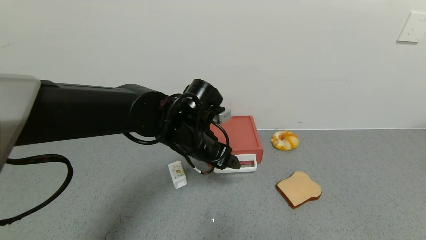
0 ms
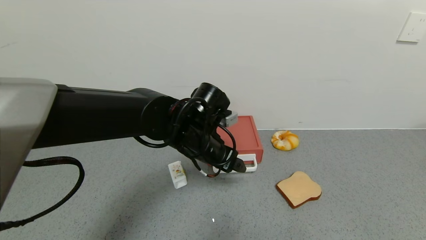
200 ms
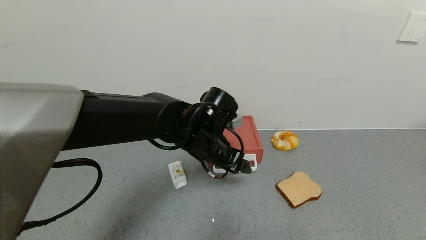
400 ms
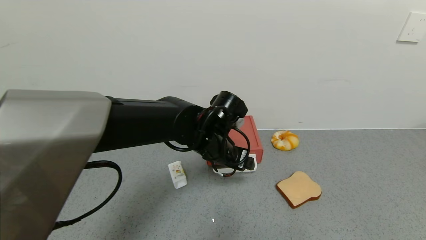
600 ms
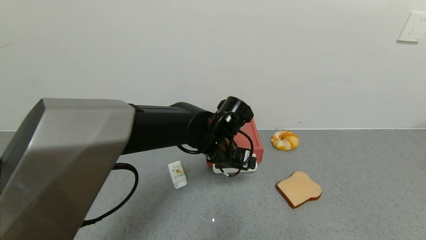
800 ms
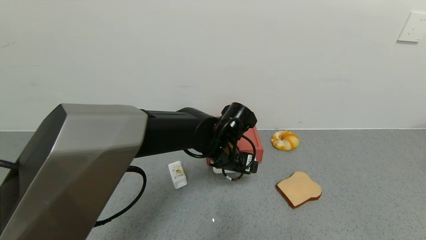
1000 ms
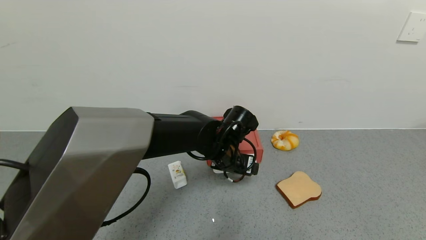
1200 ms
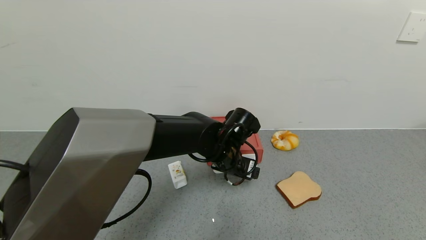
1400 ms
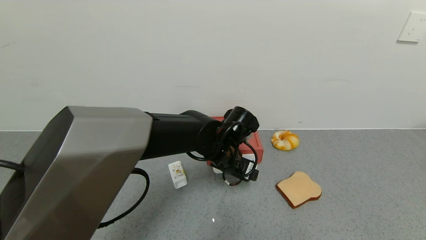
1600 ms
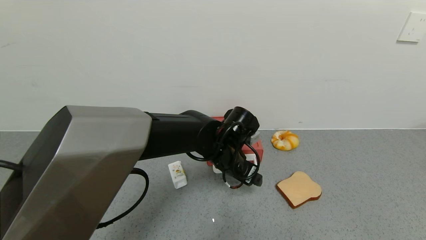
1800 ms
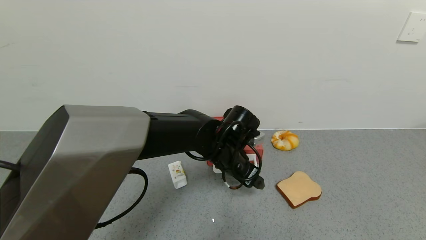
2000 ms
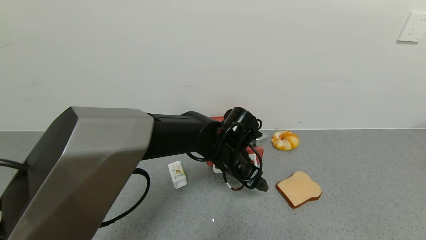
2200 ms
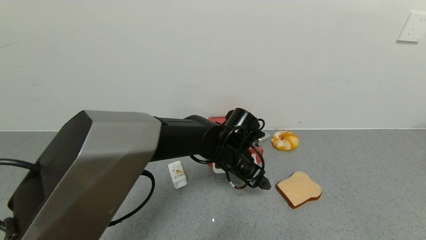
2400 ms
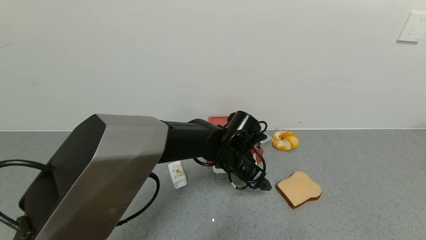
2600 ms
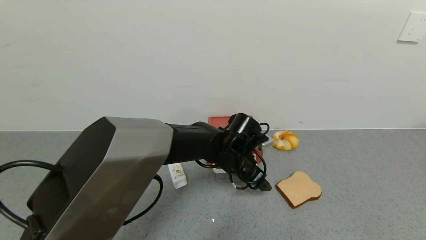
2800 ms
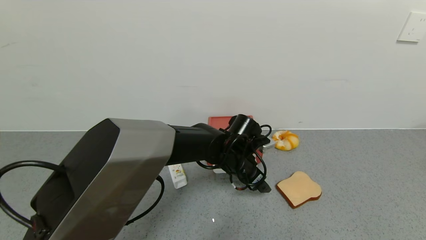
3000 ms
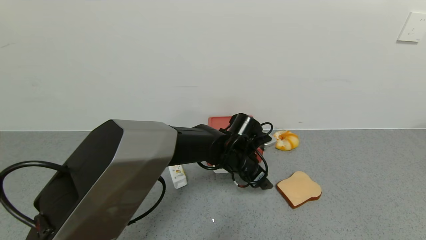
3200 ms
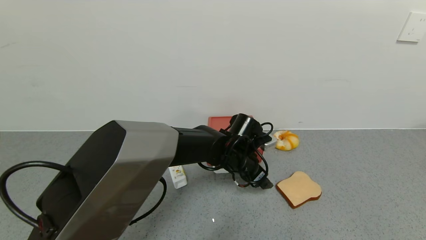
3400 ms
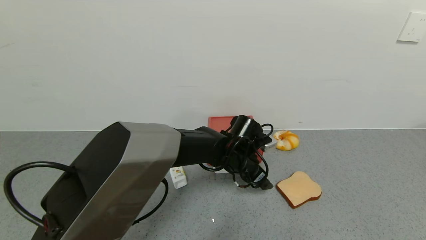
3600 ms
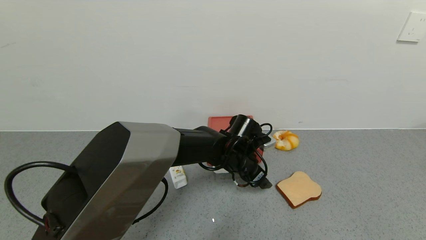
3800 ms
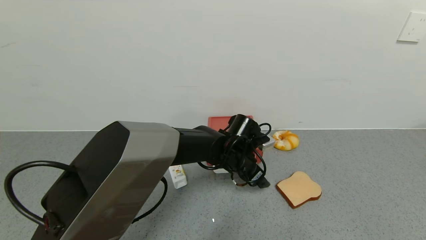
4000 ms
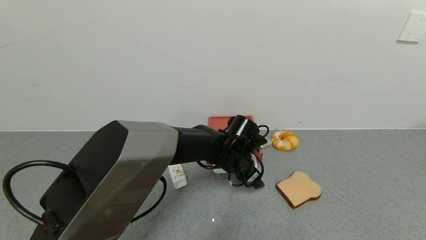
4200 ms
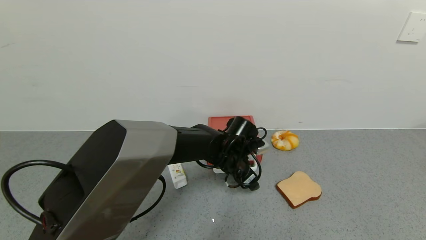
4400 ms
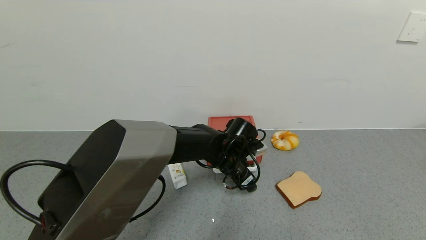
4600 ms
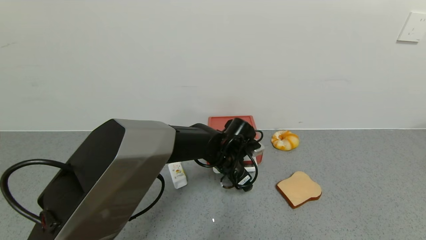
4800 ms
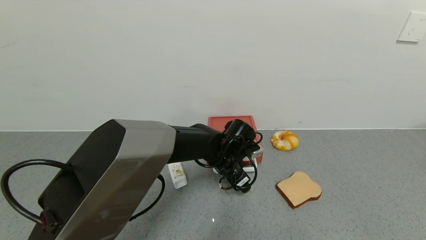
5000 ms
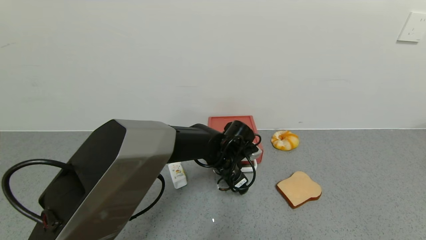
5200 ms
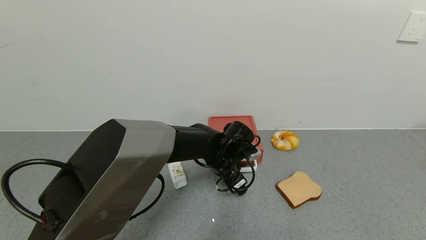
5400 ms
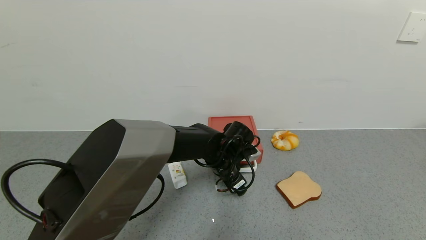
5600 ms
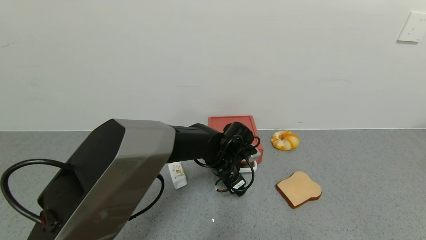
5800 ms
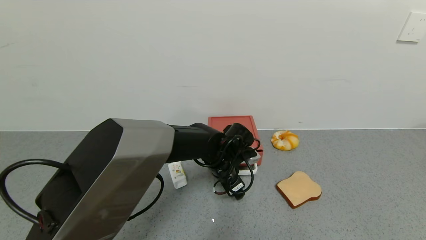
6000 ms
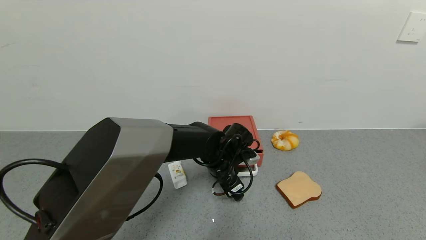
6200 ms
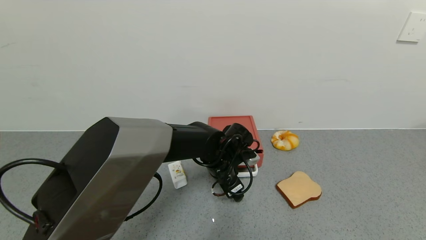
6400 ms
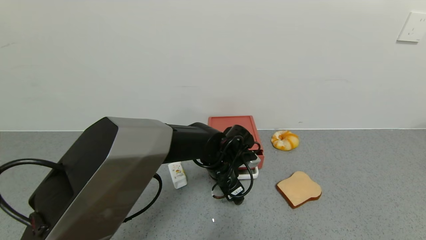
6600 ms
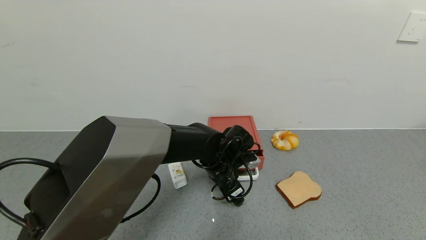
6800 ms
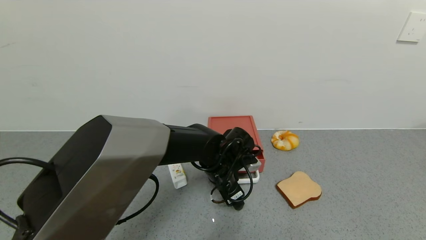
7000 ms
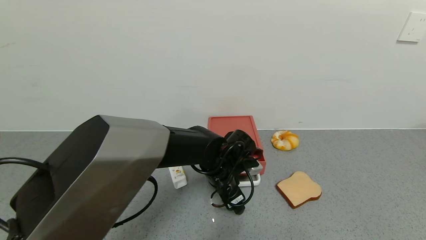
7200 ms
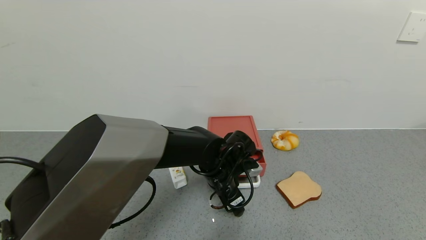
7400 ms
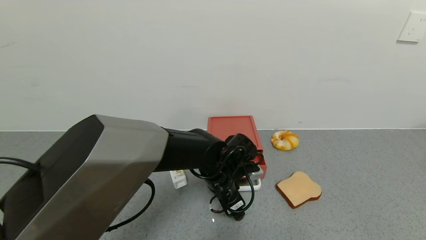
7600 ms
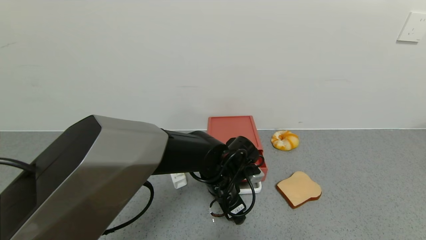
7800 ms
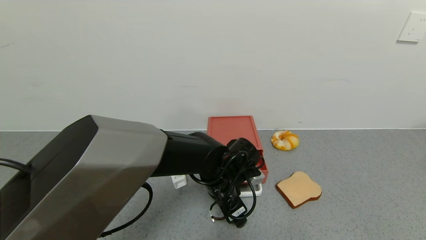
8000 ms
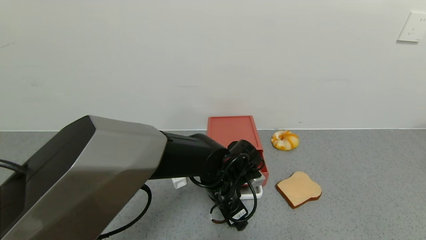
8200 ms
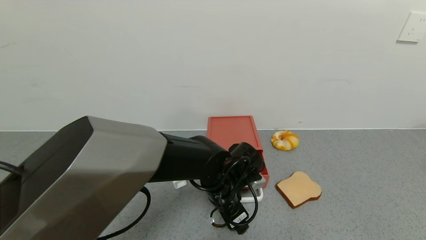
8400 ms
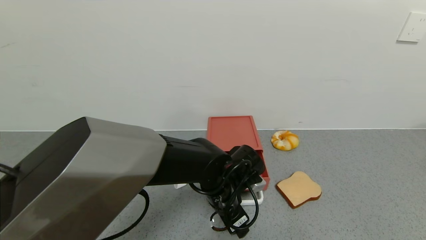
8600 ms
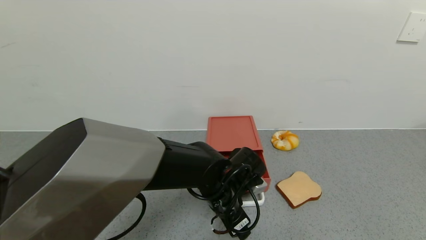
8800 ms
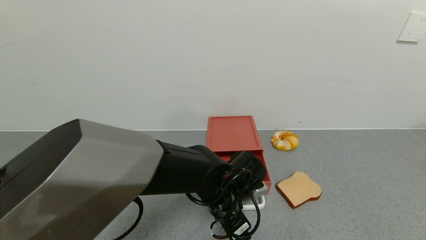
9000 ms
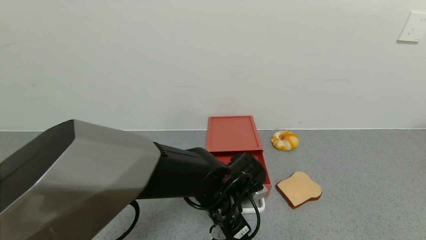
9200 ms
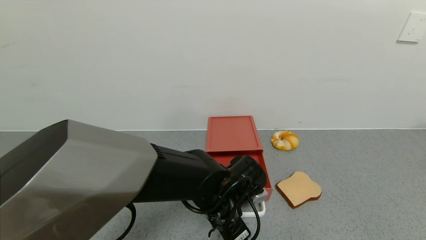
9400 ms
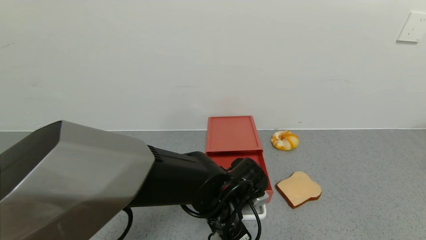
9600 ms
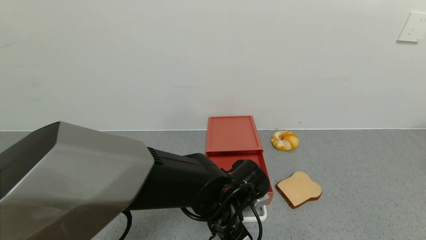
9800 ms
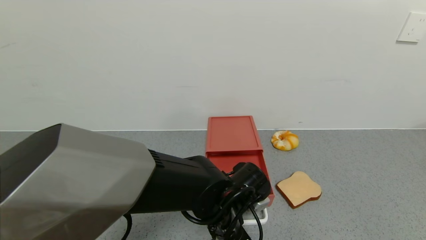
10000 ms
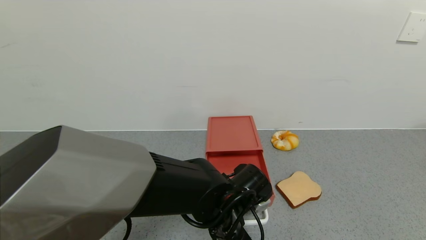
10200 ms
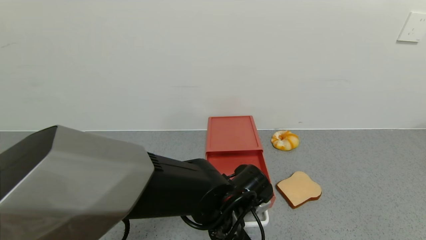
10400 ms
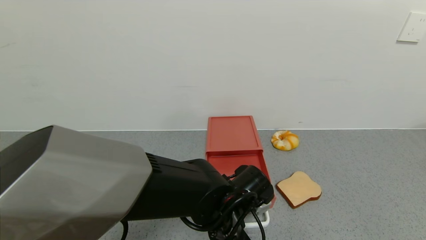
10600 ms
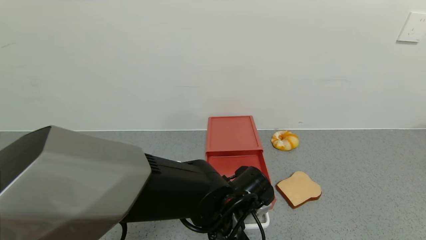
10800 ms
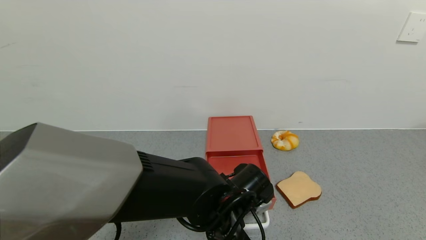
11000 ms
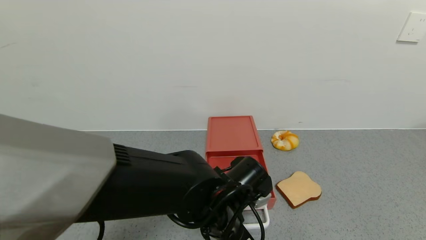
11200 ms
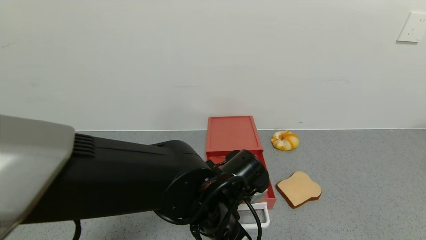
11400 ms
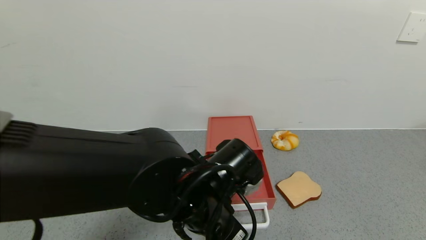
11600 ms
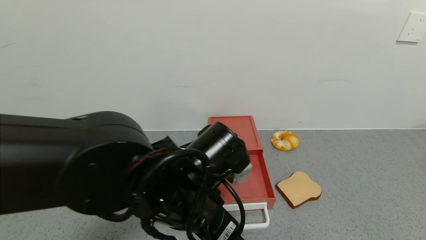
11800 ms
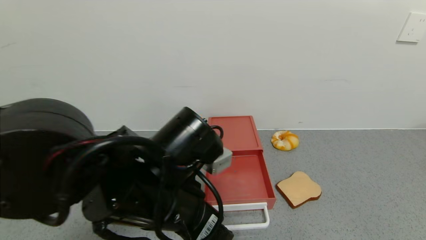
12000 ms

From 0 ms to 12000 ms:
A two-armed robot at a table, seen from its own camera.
Task of the whole recording: use the gripper to open the drawer and close the red drawer.
Step, from 0 ms to 11600 ms: Open the red drawer with the left gripper.
From 0 ms to 1600 ms: The left gripper heads to the right and downward, covering roughly 10 cm.
From 3000 ms to 4400 ms: The grippers stay close to where they were, moving slightly.
From 4400 ms to 7600 ms: The grippers make only small movements.
From 7600 ms to 9000 ms: There are only small adjustments of the grippers.
From 9000 ms to 10400 ms: The grippers stay close to where they were, moving slightly.
From 10400 ms to 12000 ms: The left gripper moves upward and to the left, approximately 15 cm.

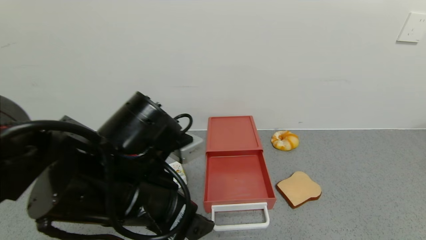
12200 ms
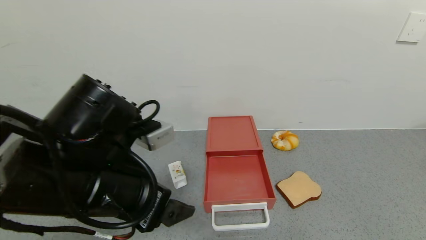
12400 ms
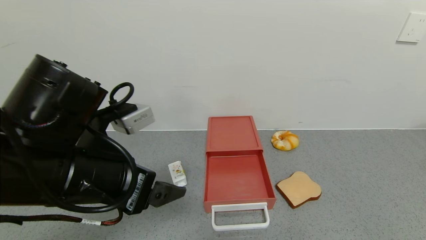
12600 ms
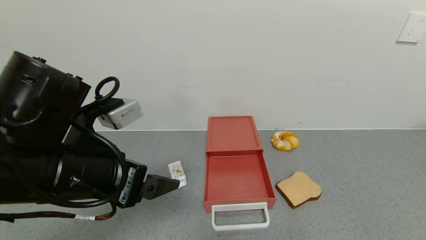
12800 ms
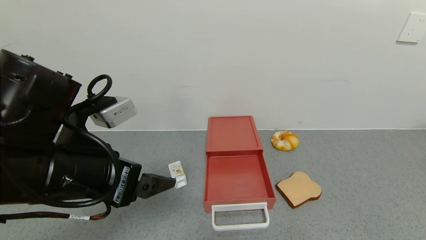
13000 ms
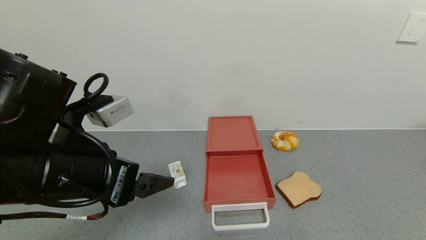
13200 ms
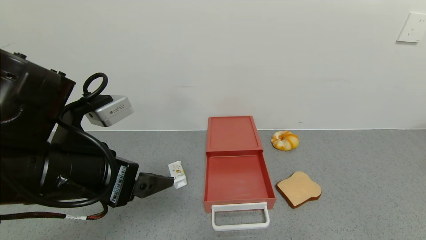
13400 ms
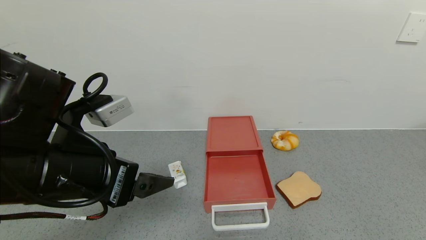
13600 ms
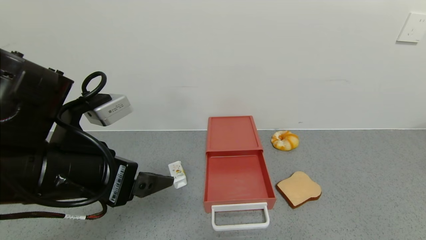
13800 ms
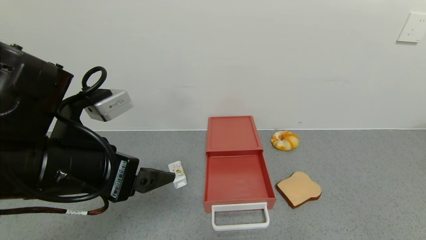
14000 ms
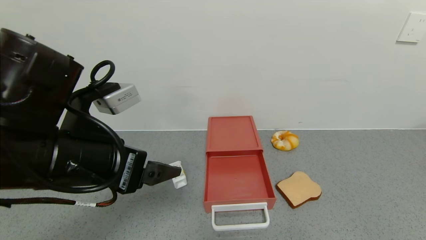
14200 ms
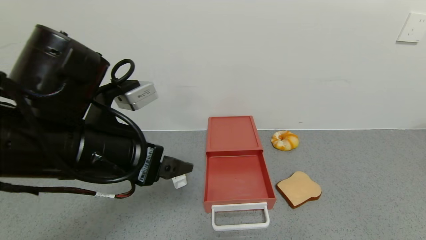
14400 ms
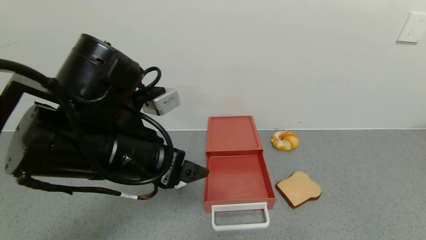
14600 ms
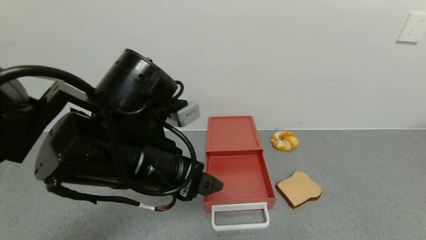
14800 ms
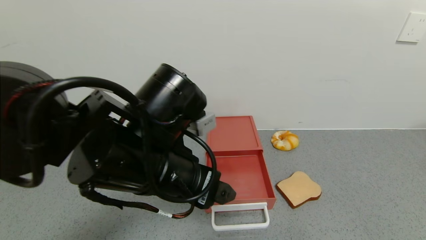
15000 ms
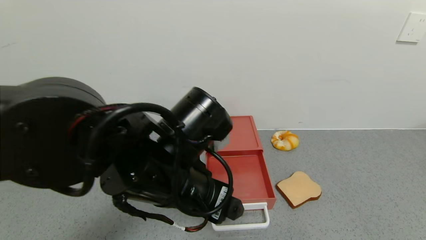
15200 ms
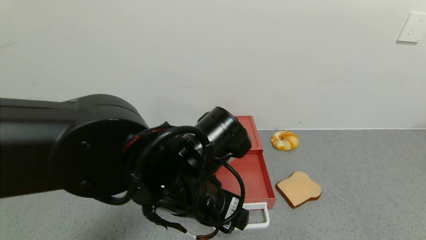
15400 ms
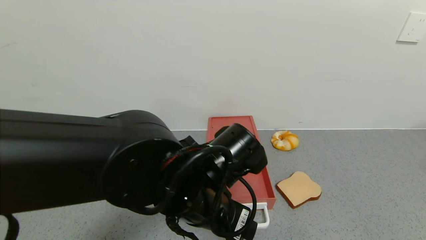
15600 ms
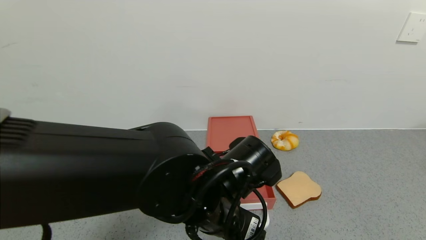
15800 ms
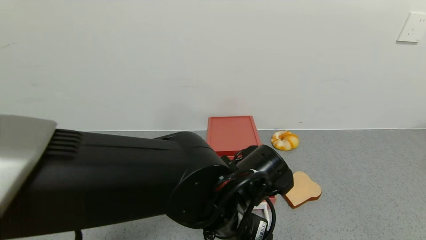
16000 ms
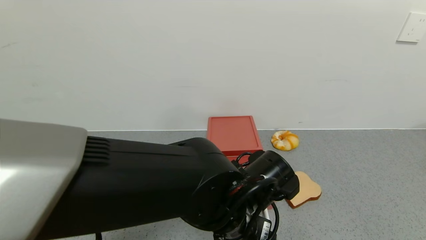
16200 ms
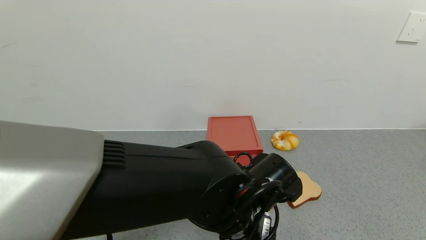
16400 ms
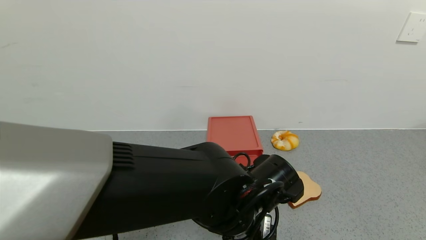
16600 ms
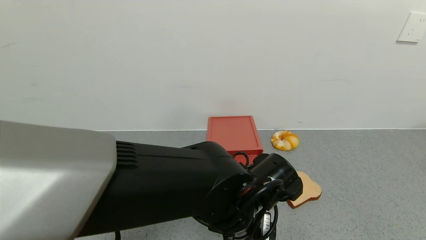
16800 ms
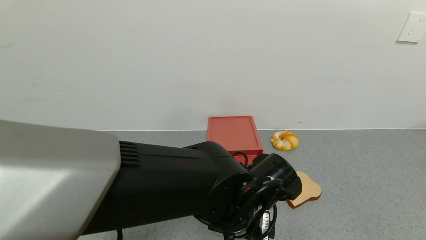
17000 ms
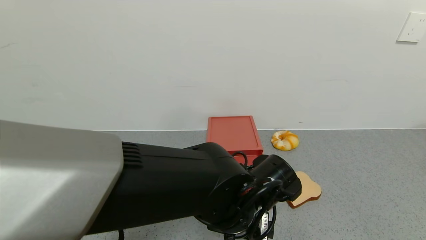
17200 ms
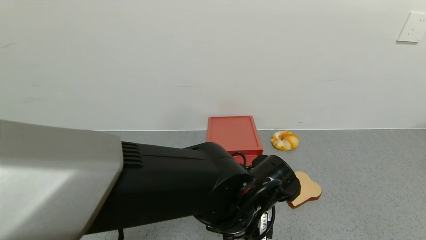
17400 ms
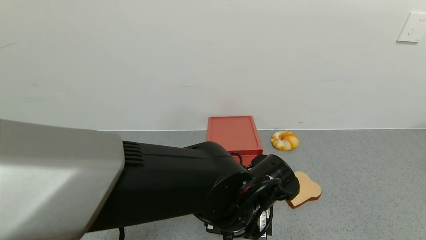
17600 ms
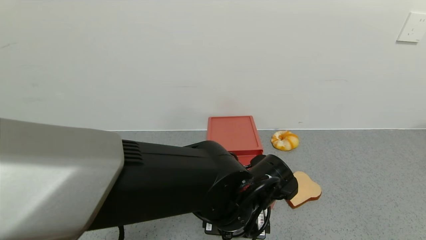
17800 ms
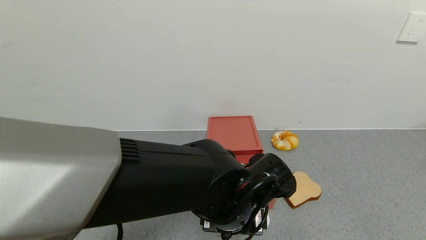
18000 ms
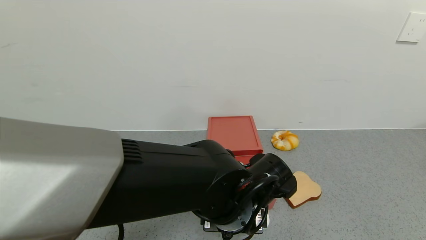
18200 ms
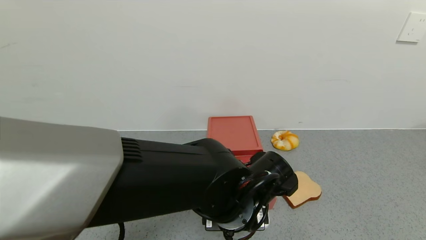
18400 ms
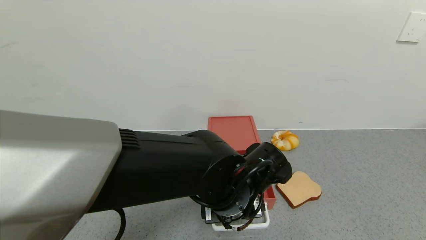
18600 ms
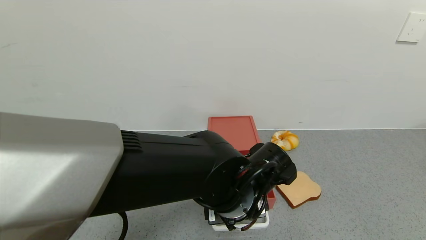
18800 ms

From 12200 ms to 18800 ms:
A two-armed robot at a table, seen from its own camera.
Task of the whole recording: use the gripper to open the drawer and close the red drawer.
From 12200 ms to 13800 ms: The left gripper moves to the left, roughly 5 cm.
From 13800 ms to 15400 ms: The left gripper heads to the right and downward, covering some 15 cm.
From 15400 ms to 17200 ms: The left gripper moves downward and to the right, some 10 cm.
From 17200 ms to 18800 ms: The grippers stay close to where they were, moving slightly.
